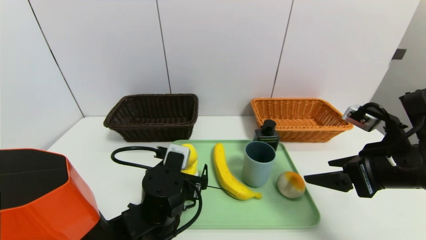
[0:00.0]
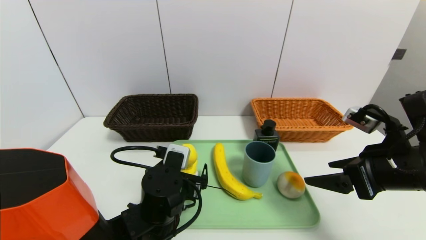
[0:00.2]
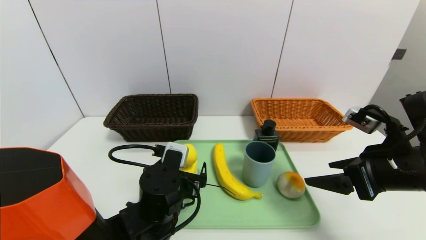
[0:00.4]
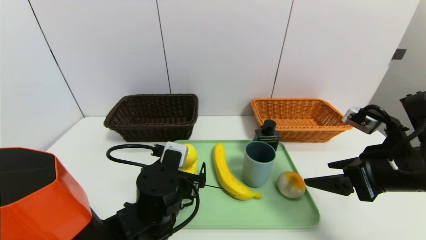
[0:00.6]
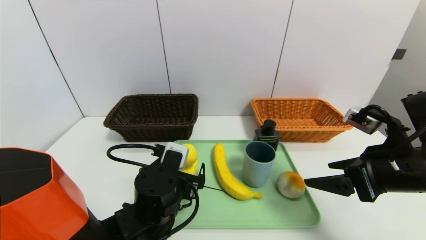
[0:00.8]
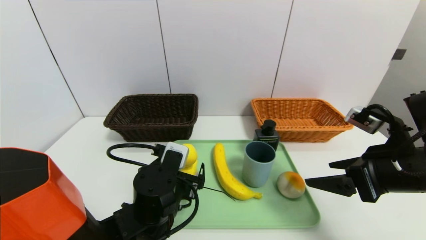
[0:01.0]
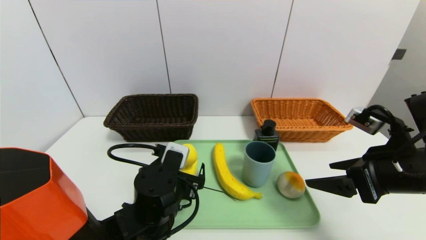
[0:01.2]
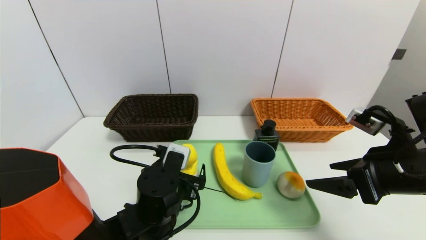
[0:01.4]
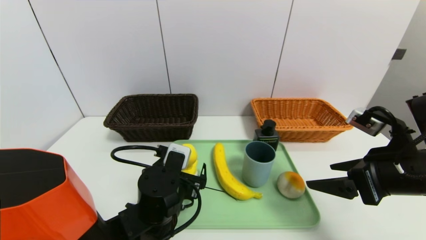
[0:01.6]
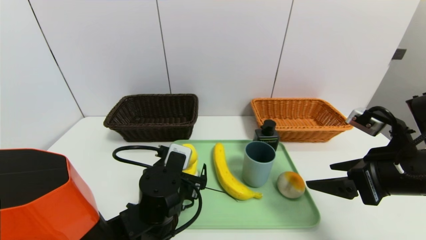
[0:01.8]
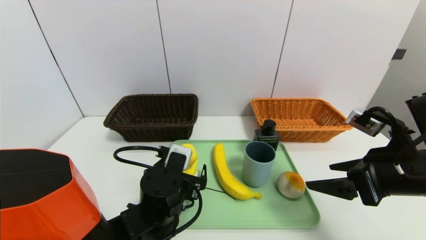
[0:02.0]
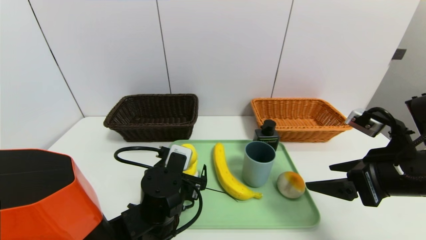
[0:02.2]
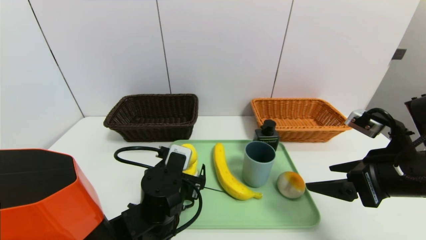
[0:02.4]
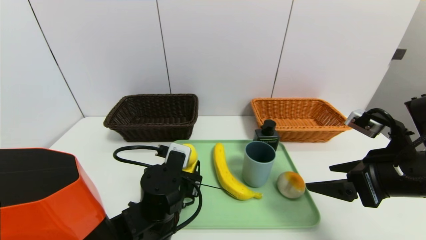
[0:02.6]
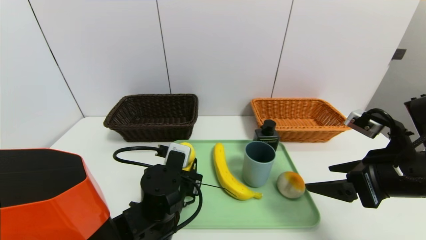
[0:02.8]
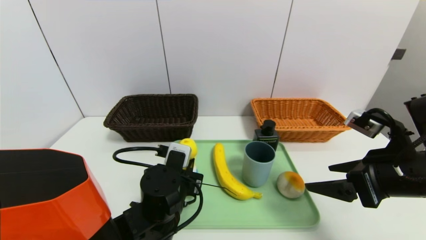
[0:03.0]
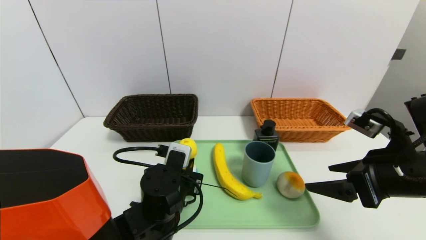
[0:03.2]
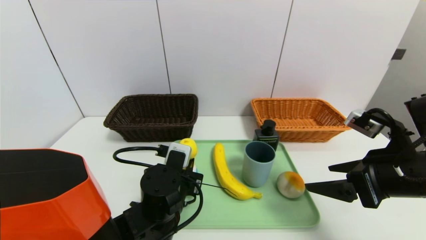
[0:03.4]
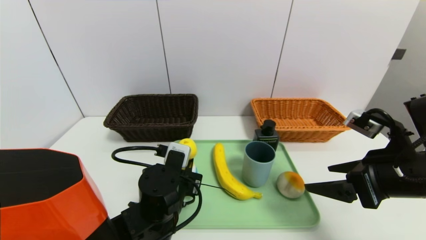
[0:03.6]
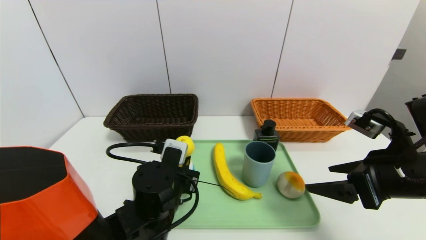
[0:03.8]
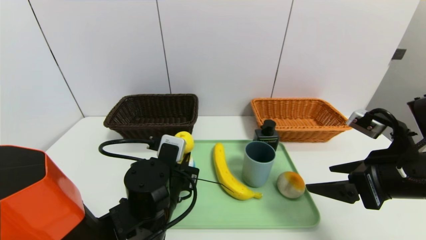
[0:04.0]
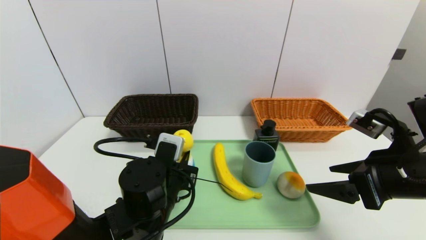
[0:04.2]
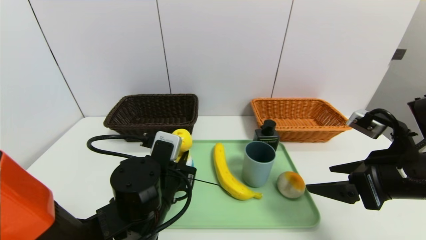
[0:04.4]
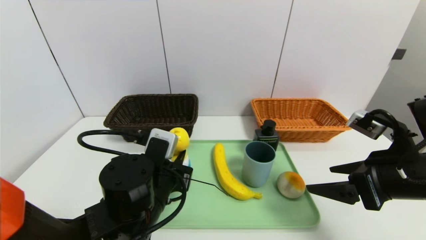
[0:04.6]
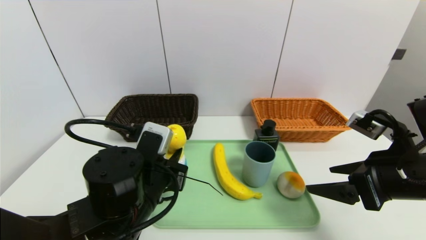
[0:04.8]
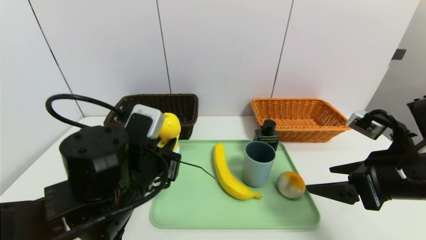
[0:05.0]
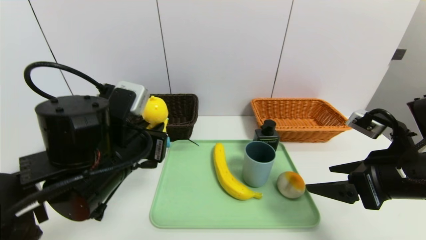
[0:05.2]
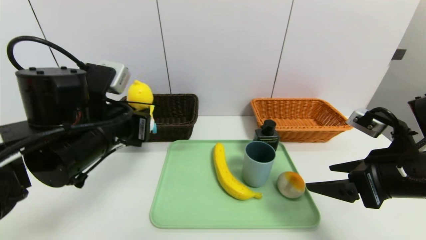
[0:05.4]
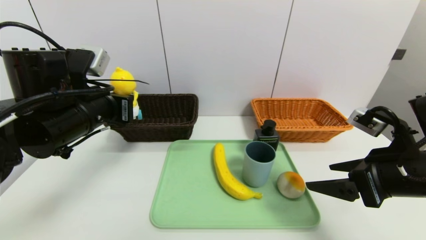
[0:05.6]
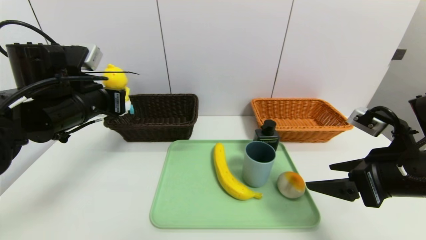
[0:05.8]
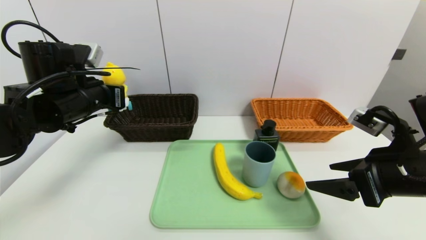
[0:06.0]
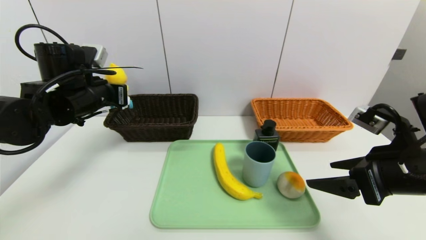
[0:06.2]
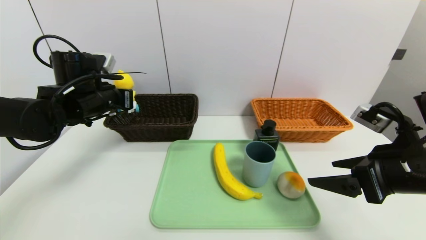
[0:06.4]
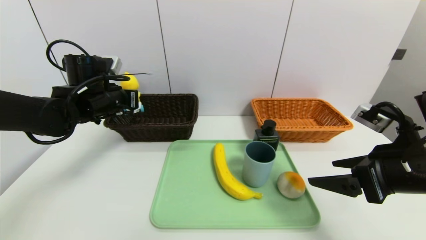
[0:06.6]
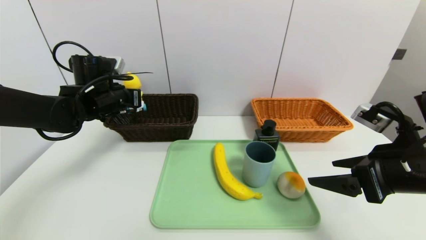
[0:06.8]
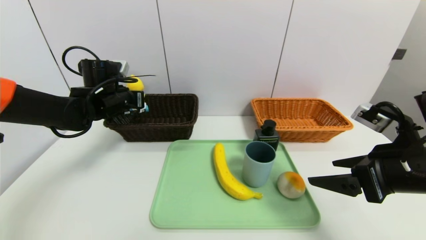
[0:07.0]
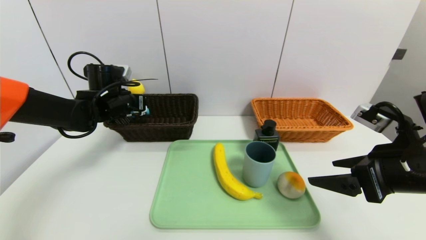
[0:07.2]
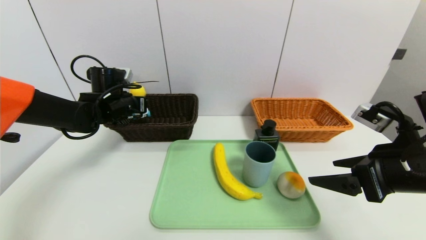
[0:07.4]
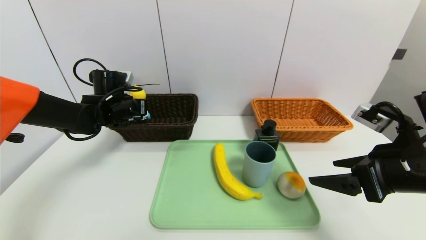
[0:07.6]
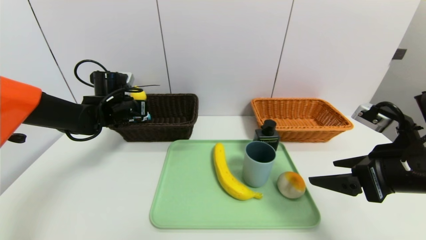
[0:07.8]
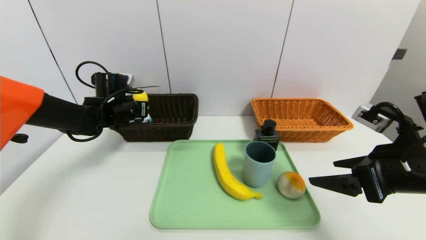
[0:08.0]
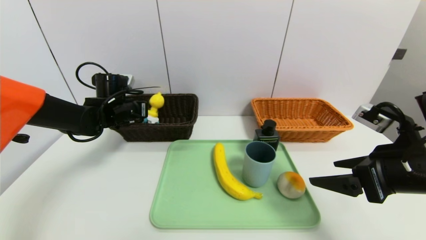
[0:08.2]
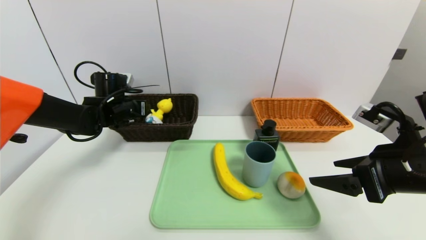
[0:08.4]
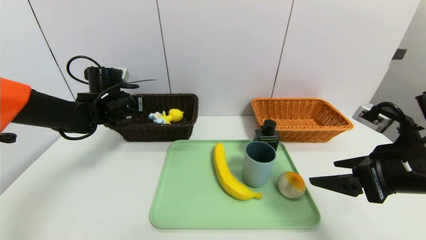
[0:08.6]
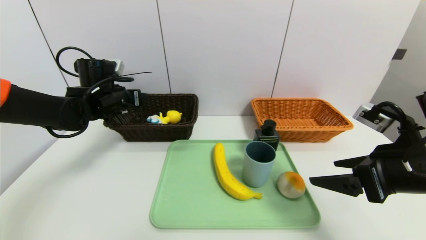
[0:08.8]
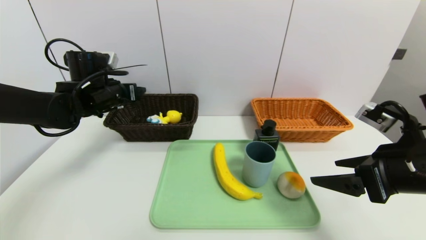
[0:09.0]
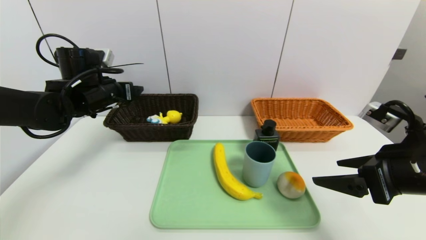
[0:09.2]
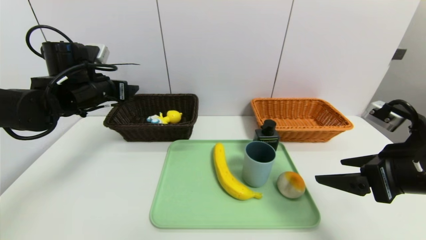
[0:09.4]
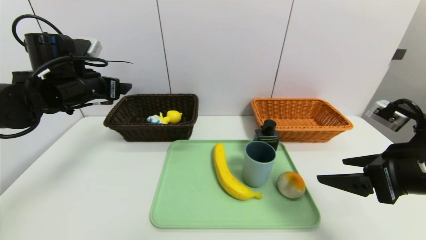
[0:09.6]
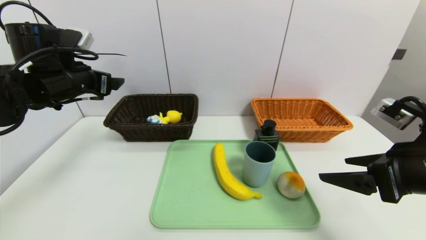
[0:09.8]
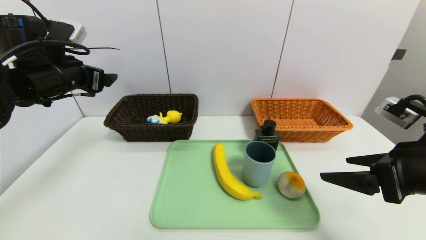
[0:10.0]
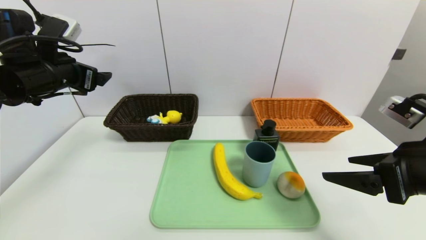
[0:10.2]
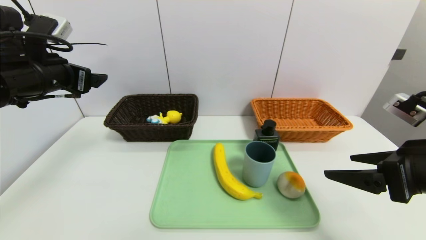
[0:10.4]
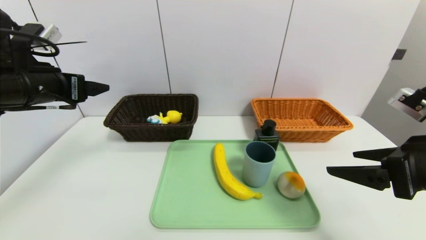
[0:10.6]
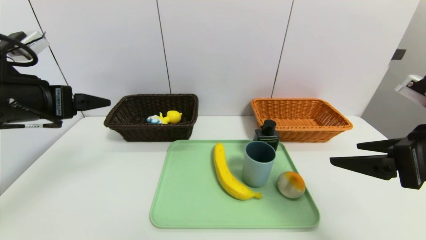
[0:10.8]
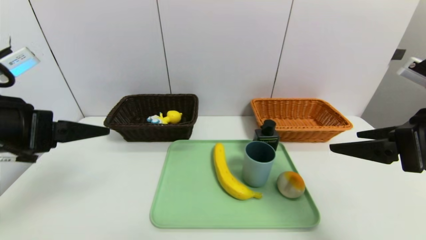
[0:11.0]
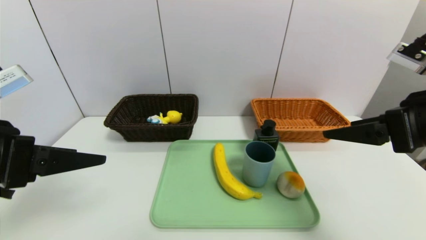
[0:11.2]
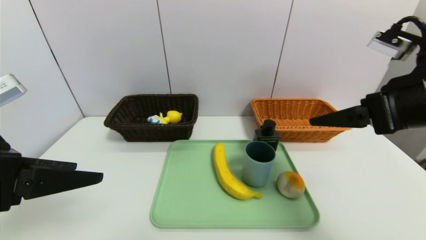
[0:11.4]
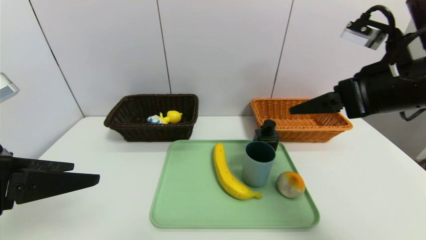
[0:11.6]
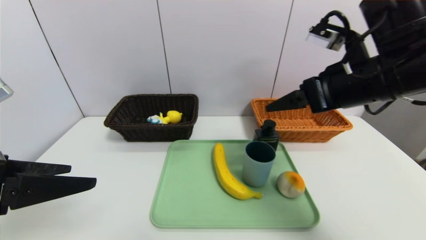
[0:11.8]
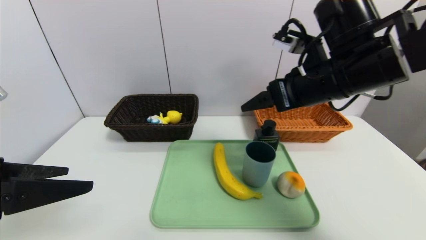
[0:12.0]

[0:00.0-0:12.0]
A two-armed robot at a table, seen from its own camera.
Task of the whole recording: place the food in the right basket with the right gripper, and place the non food items in the left basket with the left gripper.
Step, 0:00.0 to 0:08.6: Grasp the duck toys and put it in the left basket.
0:00.0 to 0:01.6: The two grippers keep their place.
0:01.6 to 0:03.0: The left gripper closes its fingers.
0:03.0 to 0:04.4: There are only small adjustments of the grippers.
0:04.4 to 0:06.0: The left gripper heads to the left, upward and forward, covering some 20 cm.
0:06.0 to 0:07.6: The left gripper goes roughly 15 cm forward and downward.
0:07.6 to 0:09.0: The left gripper moves upward, some 5 cm, and opens.
0:09.0 to 0:10.4: The left gripper goes approximately 10 cm backward and upward.
0:10.4 to 0:12.0: The right gripper moves to the left, forward and upward, roughly 20 cm, while the left gripper moves backward, about 20 cm.

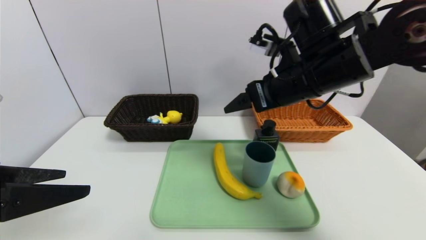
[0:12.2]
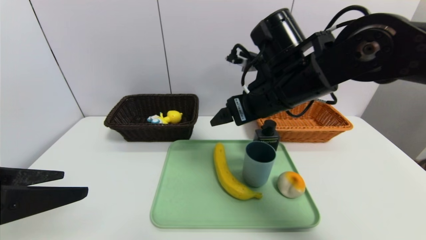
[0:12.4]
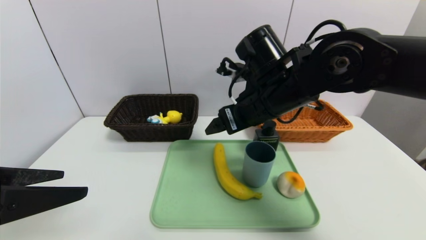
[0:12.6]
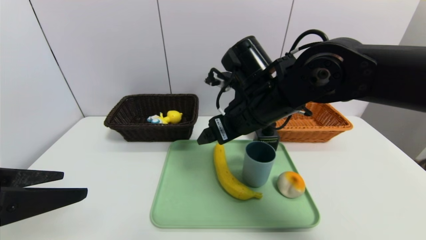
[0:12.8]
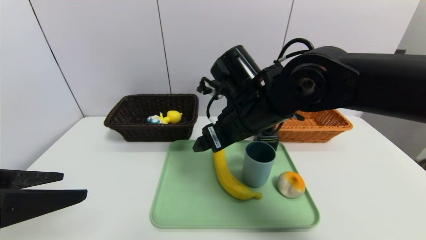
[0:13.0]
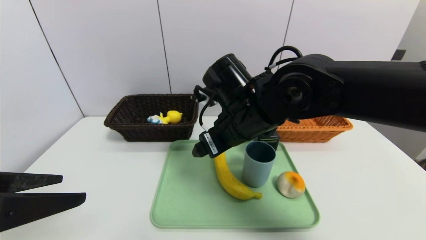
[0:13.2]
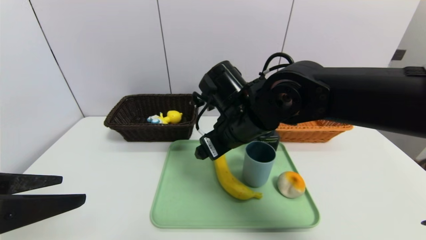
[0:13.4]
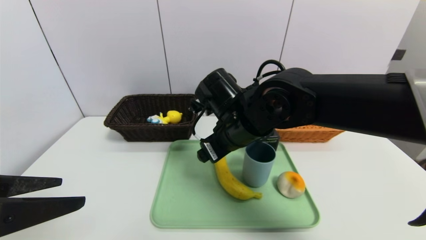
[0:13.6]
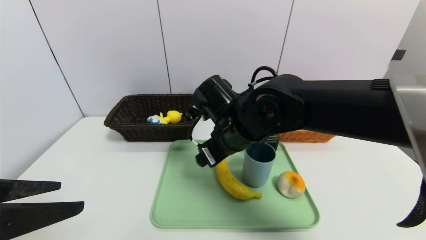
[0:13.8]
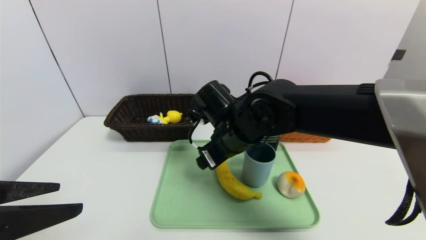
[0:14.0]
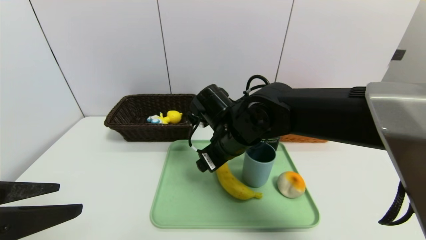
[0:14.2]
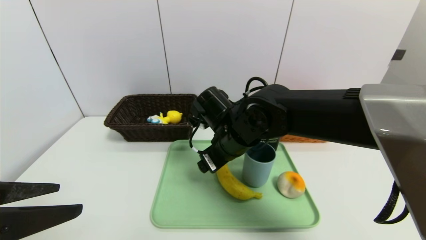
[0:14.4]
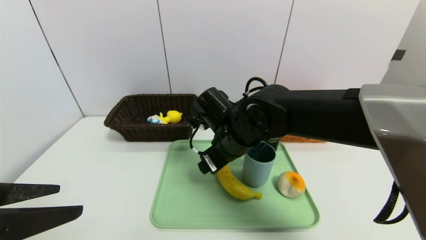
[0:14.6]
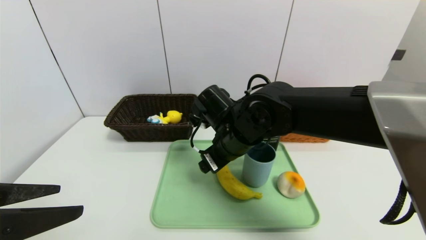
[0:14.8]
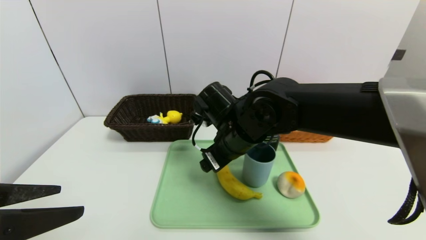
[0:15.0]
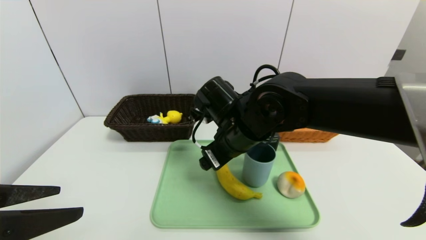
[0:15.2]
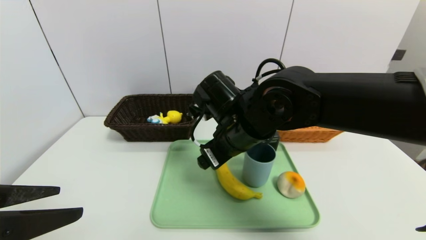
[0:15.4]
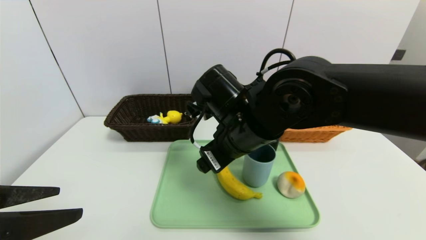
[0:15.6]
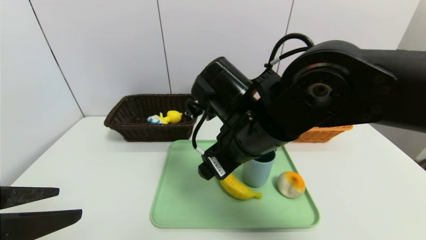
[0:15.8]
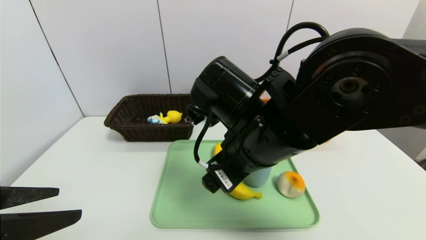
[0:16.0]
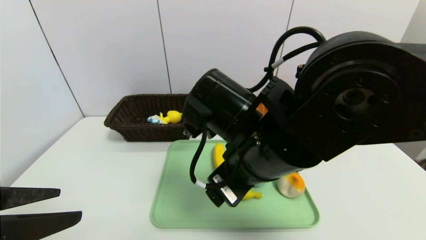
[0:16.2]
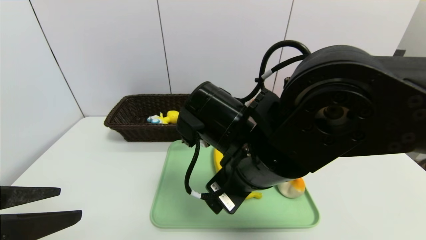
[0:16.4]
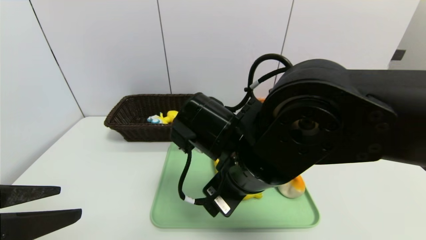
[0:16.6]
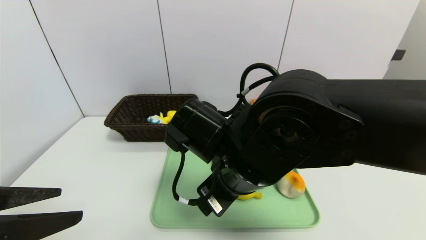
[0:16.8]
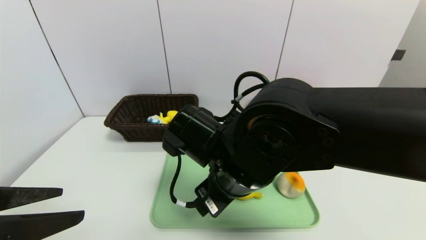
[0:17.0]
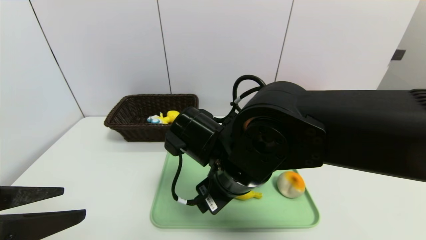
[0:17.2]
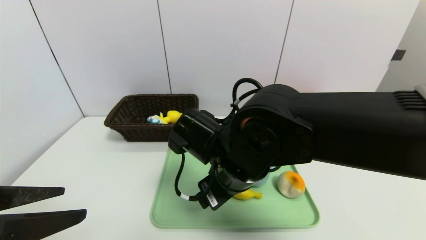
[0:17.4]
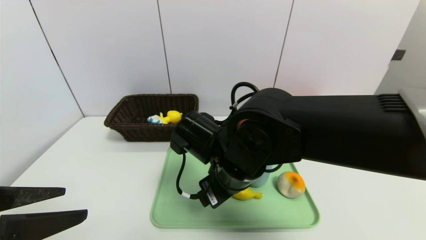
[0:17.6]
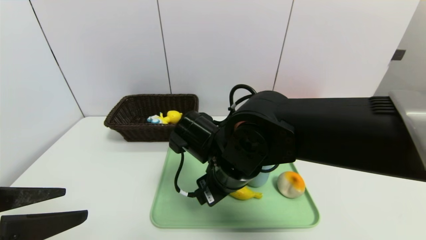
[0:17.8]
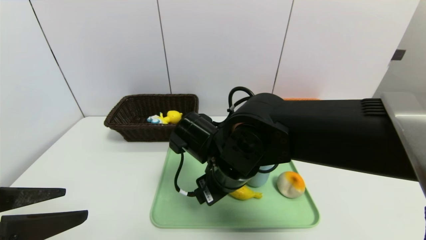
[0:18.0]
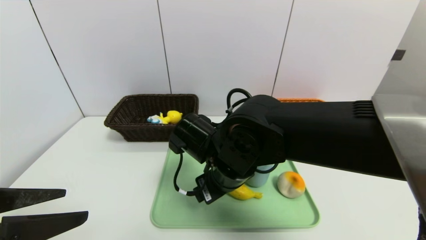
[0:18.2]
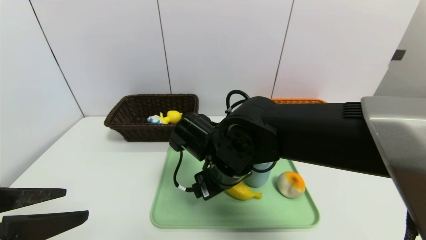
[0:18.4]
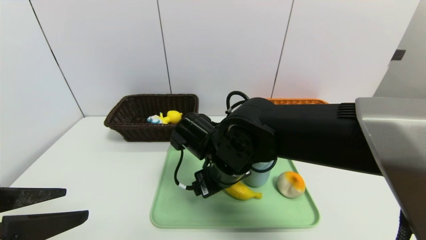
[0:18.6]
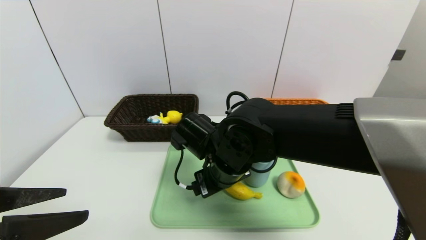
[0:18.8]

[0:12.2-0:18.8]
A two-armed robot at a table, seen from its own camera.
Task of the whole recording: place the food in the right basket with the right gripper, and place the non food items in the left basket with the left gripper.
0:12.2 to 0:13.8: The right gripper travels downward and to the left by roughly 15 cm.
0:13.8 to 0:15.4: The grippers make only small movements.
0:15.4 to 0:17.2: The right gripper moves backward, about 5 cm.
0:17.2 to 0:18.8: The right gripper ends up about 5 cm from where it was.
